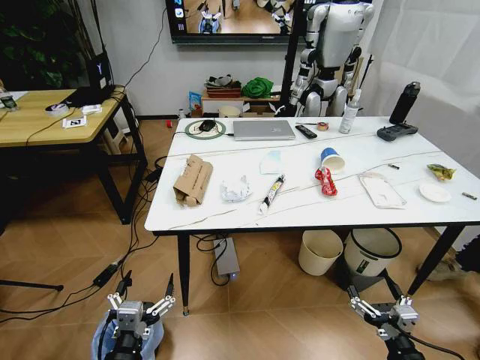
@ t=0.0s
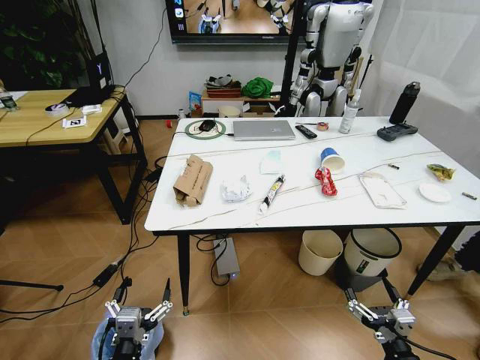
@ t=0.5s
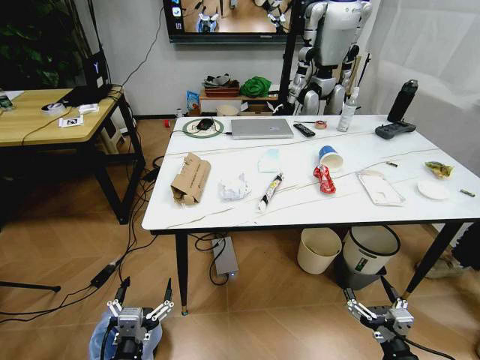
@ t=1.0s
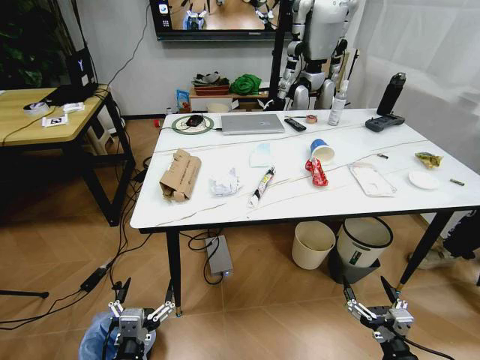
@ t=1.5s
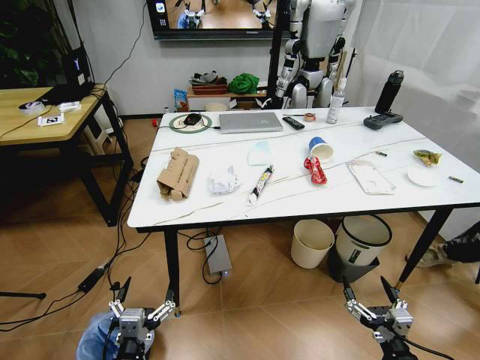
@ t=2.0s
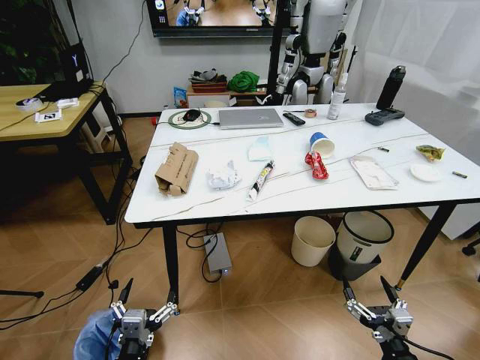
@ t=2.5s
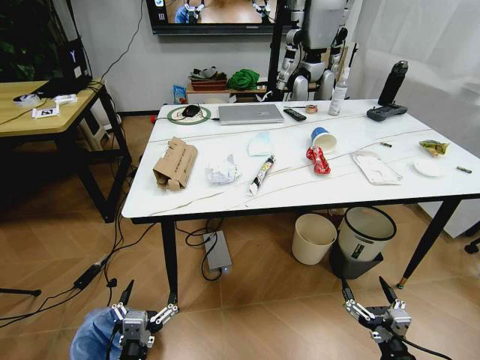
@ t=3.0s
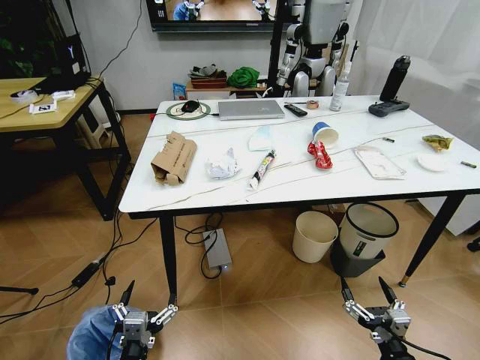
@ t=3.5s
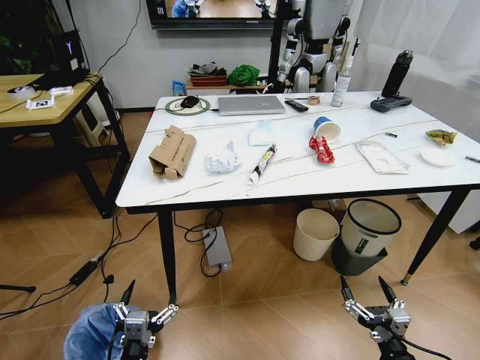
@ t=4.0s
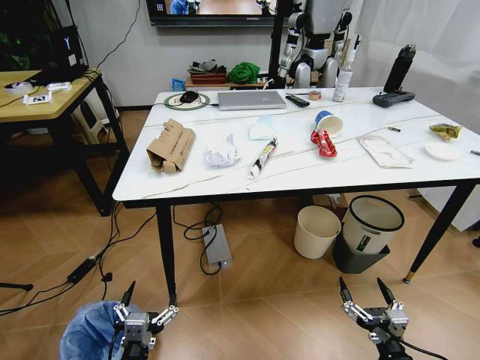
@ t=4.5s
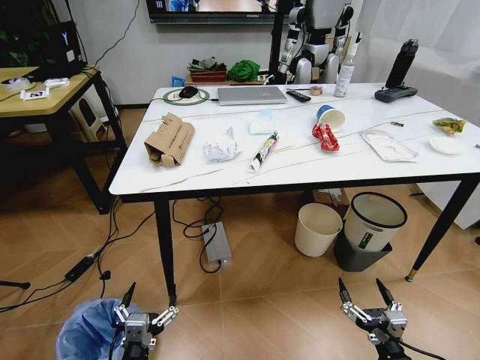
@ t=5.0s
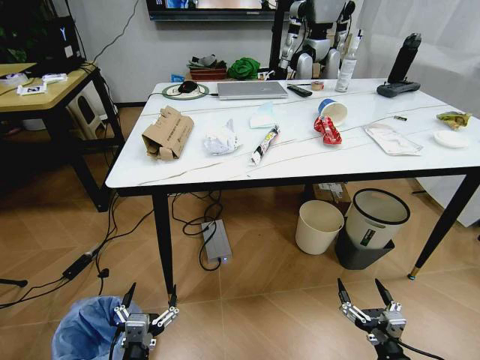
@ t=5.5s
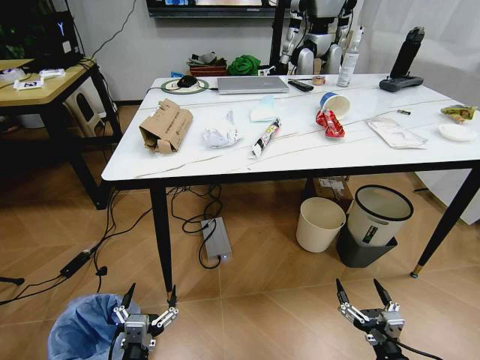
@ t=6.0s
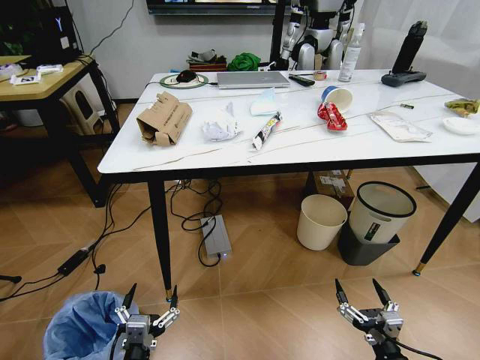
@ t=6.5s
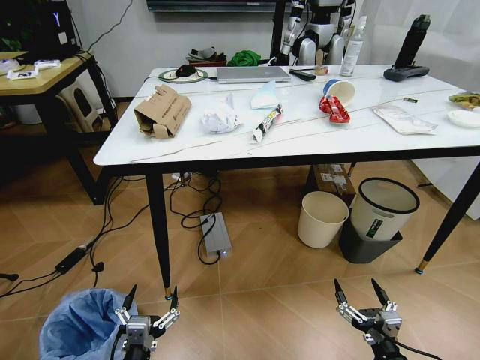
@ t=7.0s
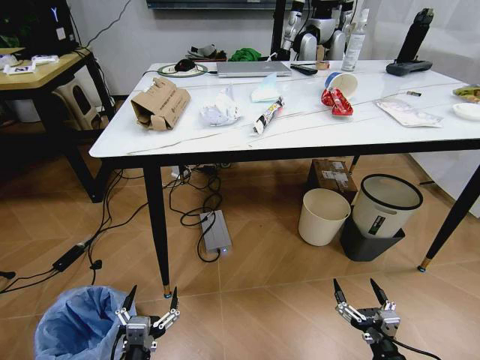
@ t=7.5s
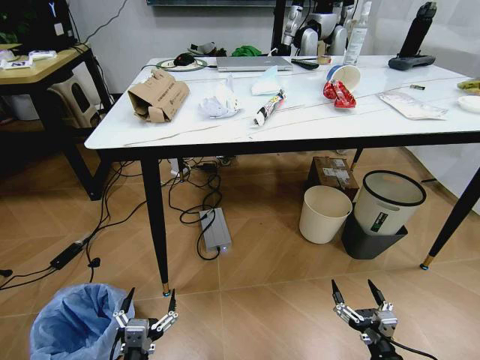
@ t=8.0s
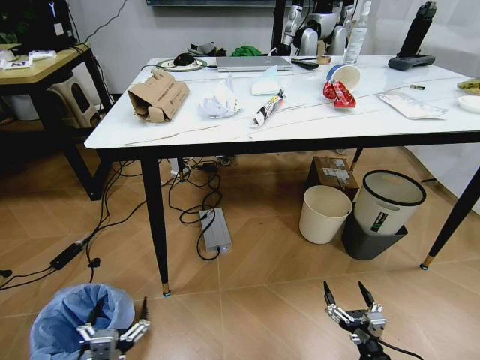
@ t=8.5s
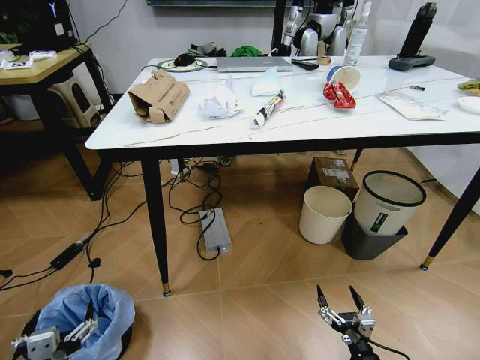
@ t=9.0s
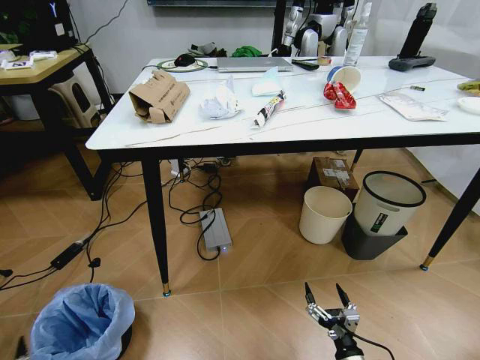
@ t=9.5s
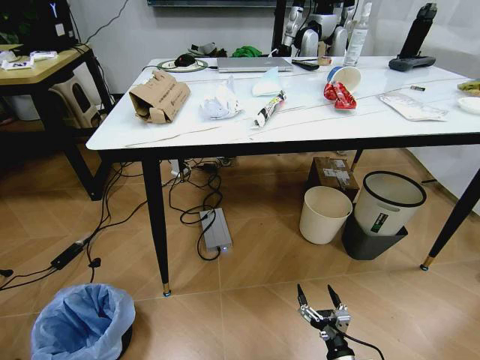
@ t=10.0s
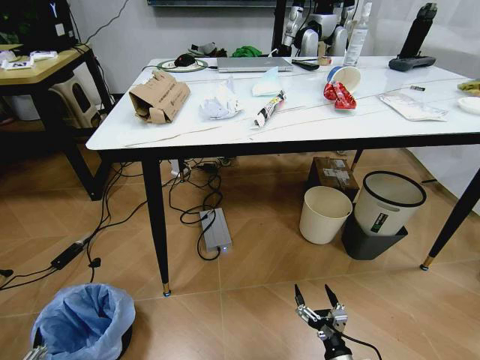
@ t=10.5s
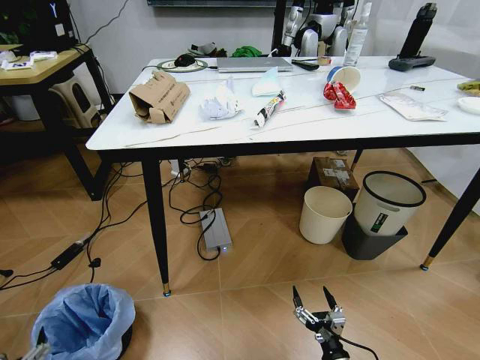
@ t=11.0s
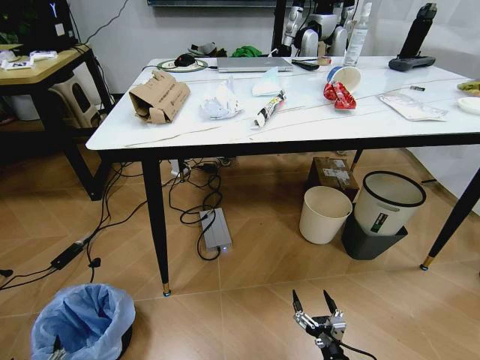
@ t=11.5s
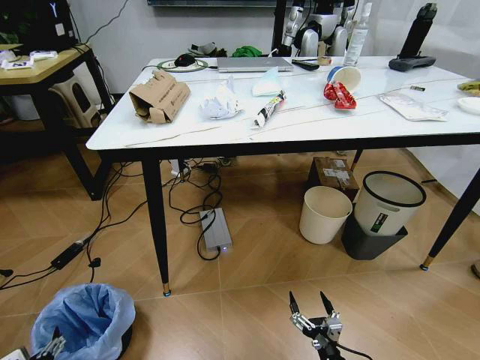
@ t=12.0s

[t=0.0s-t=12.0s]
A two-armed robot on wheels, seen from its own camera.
Task of the whole recording: Pick up the trash bin and place the trash from the table into it.
t=8.0s to t=10.0s: The left gripper shifts approximately 20 cm to the left and backward; the right gripper shifts approximately 10 cm downward and to the left.
t=10.0s to t=12.0s: The left gripper goes about 10 cm forward and downward.

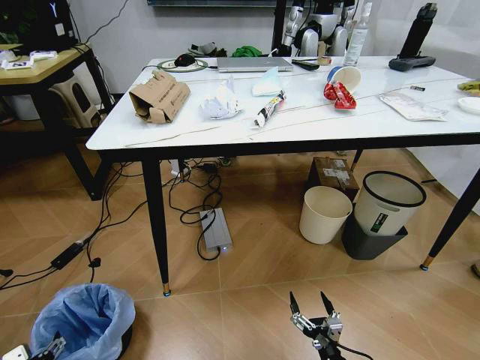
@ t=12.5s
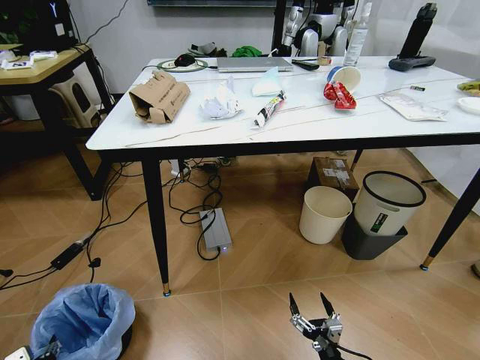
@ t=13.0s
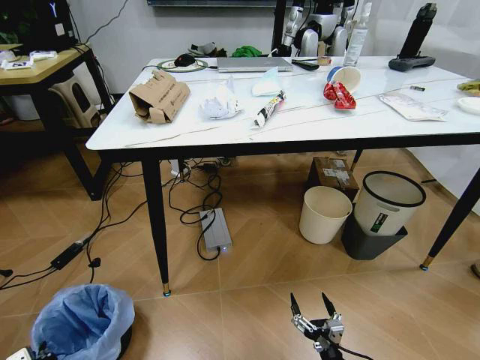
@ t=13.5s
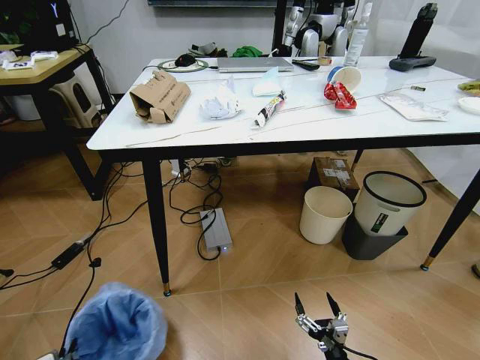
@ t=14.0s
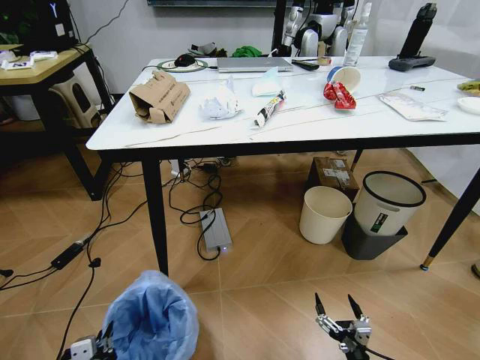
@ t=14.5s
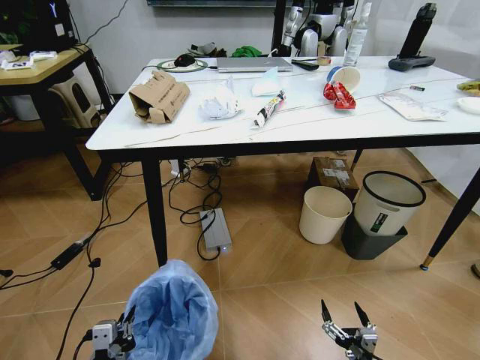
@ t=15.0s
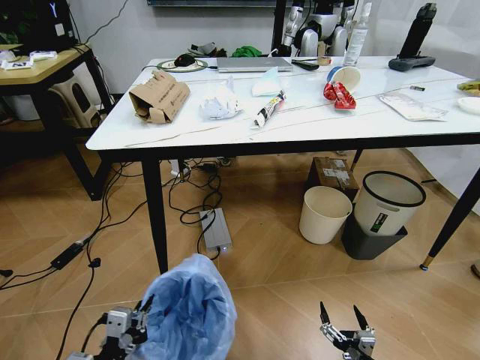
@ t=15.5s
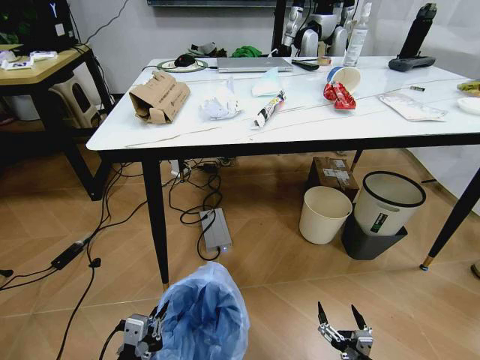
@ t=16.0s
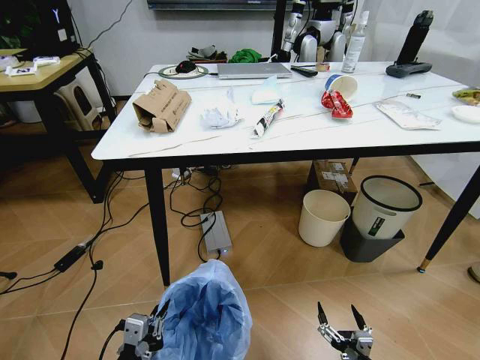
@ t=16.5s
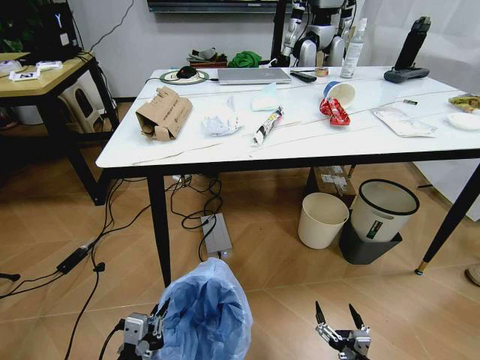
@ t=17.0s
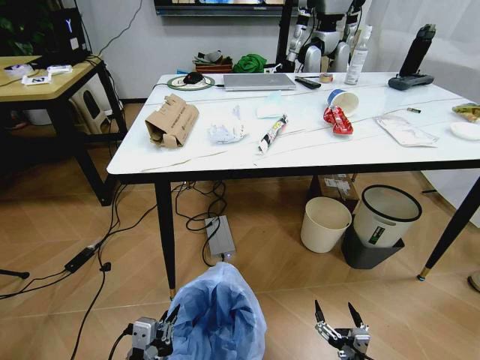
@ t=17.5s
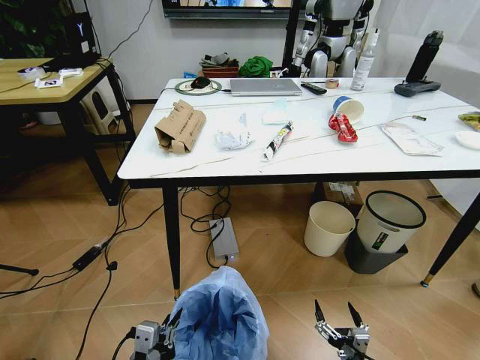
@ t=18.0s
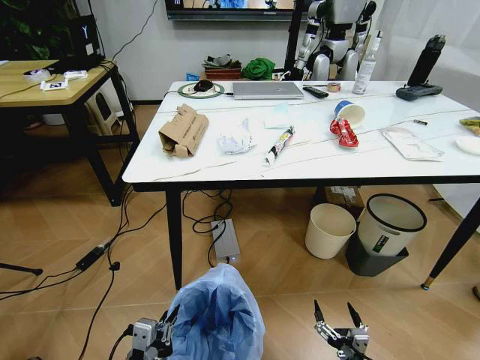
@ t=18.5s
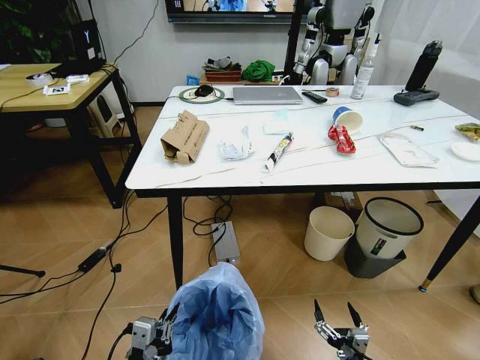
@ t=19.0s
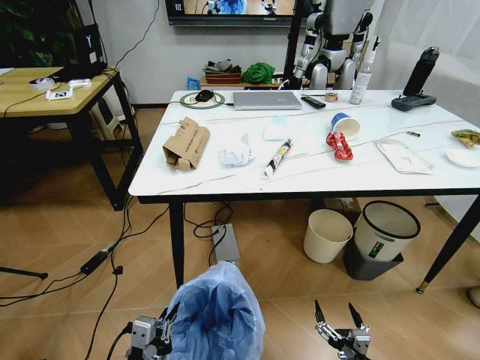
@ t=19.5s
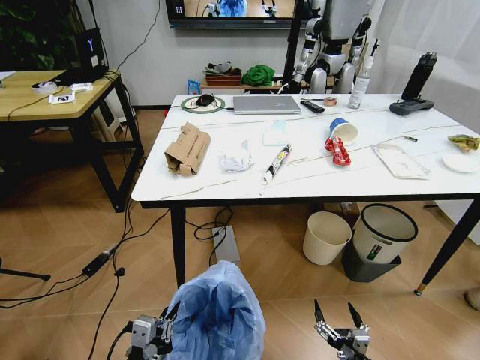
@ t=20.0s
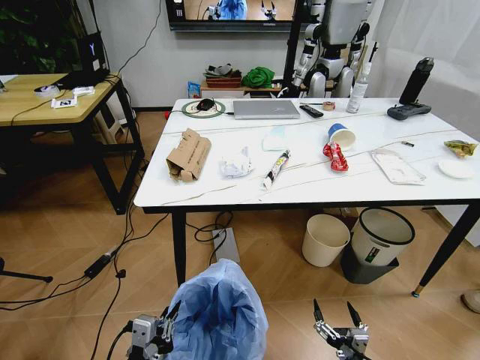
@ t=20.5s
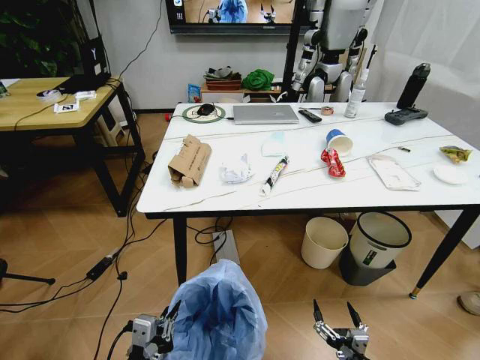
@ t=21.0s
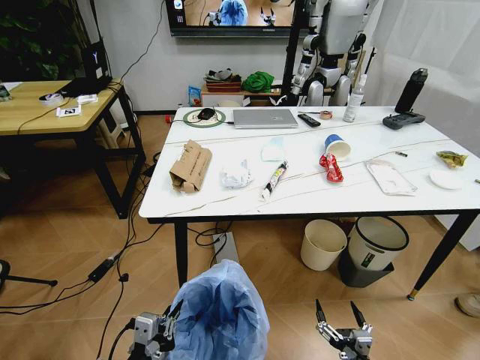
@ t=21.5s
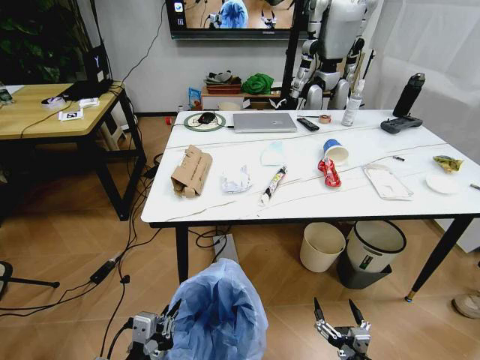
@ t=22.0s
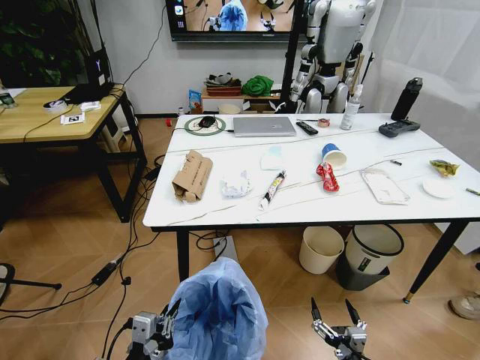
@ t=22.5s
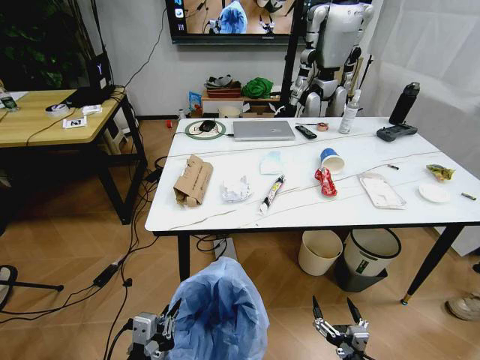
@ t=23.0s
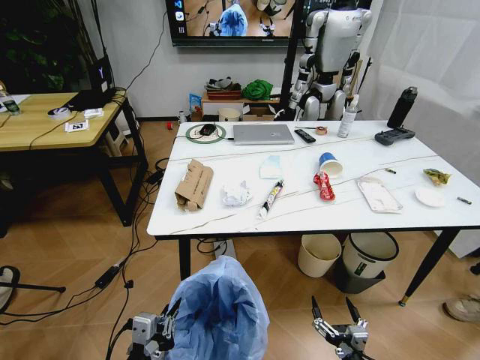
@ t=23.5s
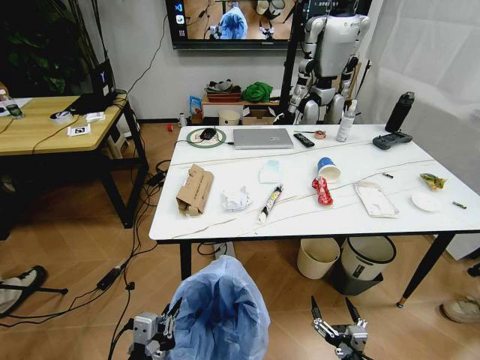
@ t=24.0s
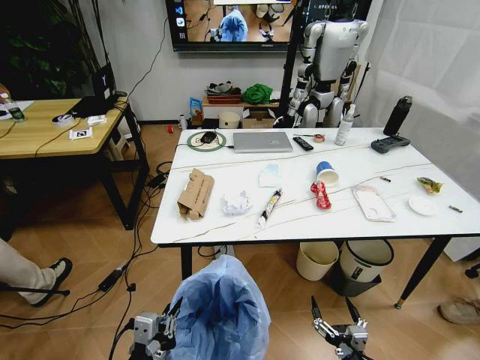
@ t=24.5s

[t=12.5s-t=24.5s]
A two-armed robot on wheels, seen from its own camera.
Task of the whole recording: Pick up the trash bin and place the trash from the table into it.
t=12.5s to t=14.5s: The right gripper ends up roughly 5 cm from where it was. The left gripper travels to the right and upward by approximately 15 cm, and closes its fingers.
t=14.5s to t=16.5s: The left gripper shifts by about 5 cm.

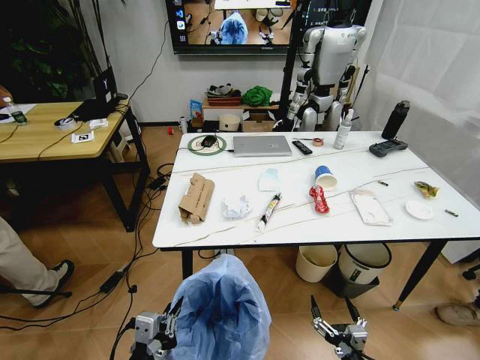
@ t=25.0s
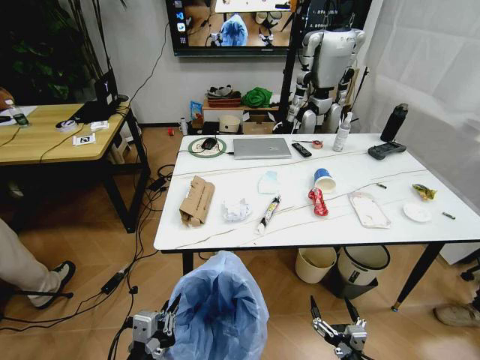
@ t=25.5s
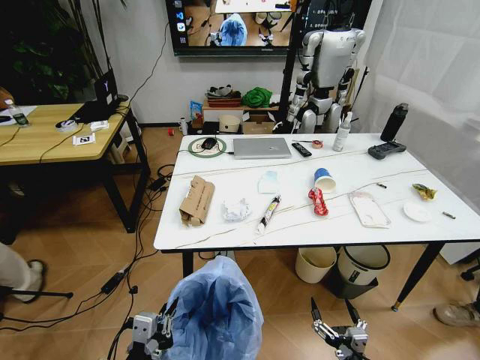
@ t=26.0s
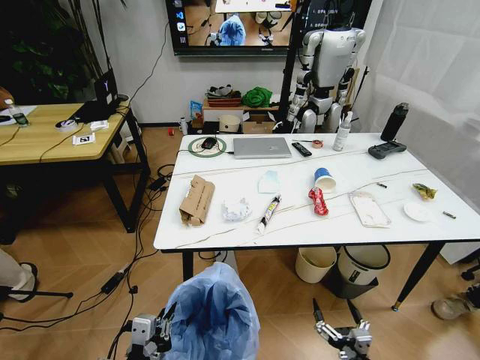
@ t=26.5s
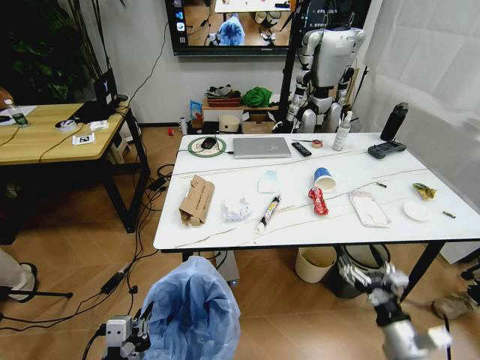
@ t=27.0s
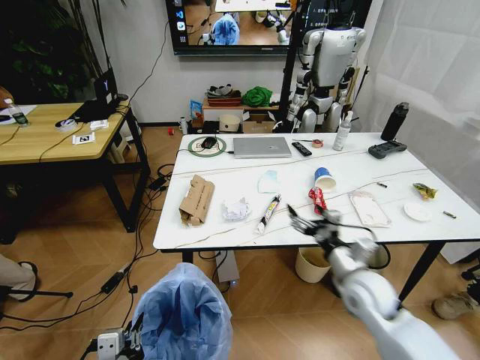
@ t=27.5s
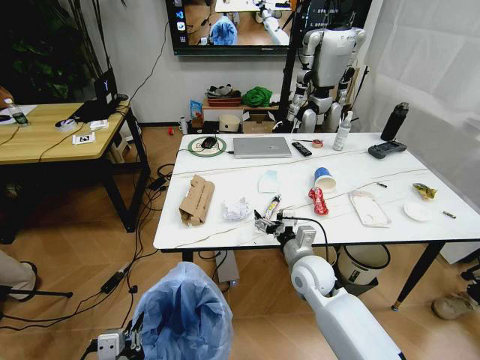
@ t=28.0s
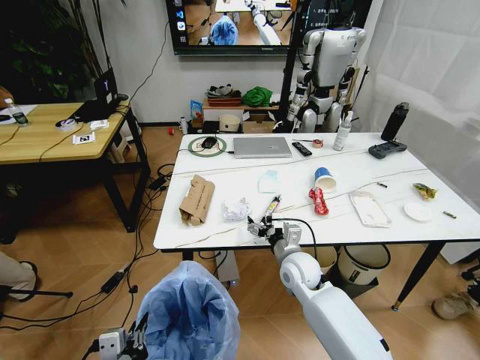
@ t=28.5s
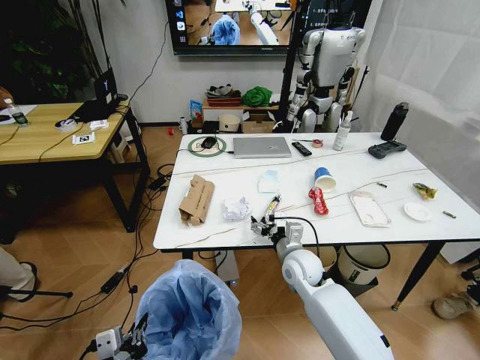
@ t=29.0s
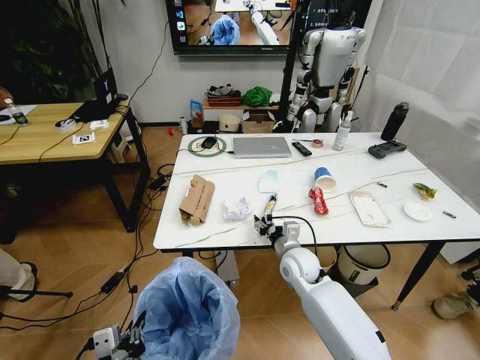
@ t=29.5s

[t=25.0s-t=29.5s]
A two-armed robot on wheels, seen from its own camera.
Task of the whole recording: Pick up the trash bin and place the trash from the table into it.
t=25.0s to t=27.0s: The right gripper shifts approximately 15 cm upward, forward and to the right.
t=27.0s to t=29.5s: The right gripper travels forward and to the left by approximately 30 cm, and closes.
